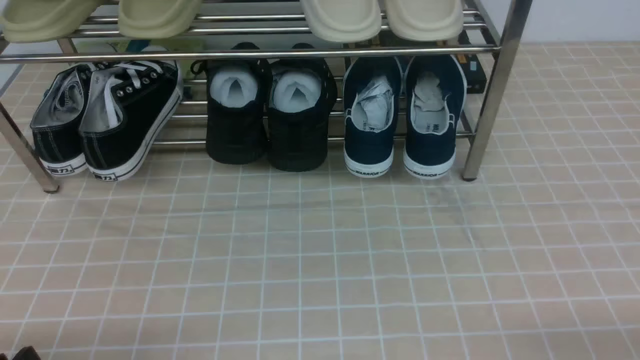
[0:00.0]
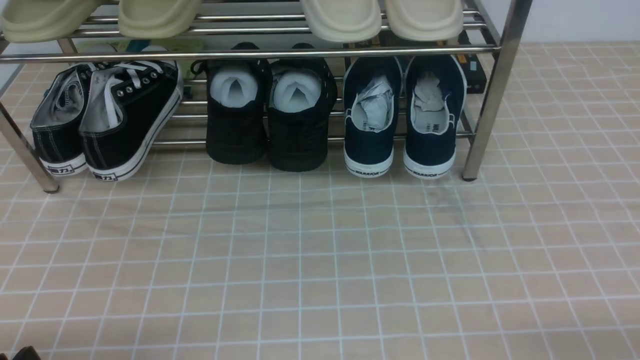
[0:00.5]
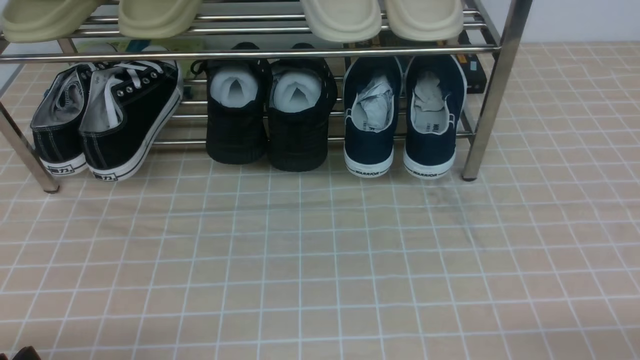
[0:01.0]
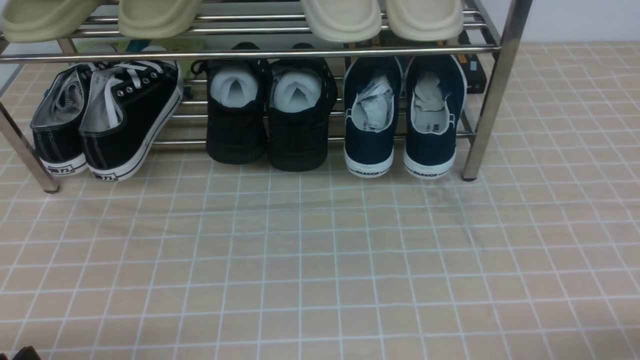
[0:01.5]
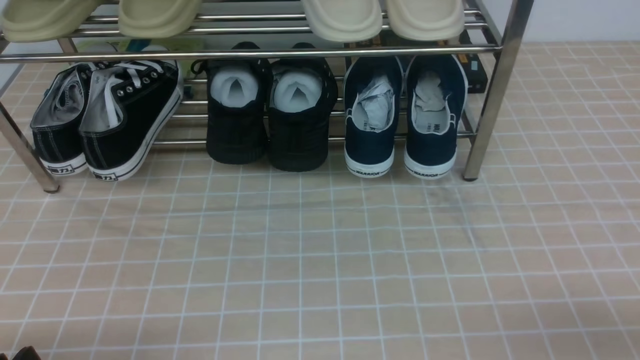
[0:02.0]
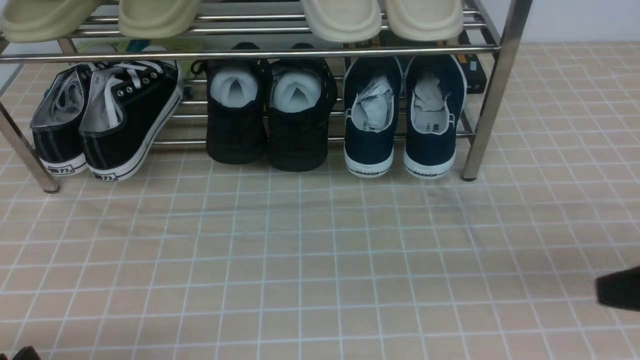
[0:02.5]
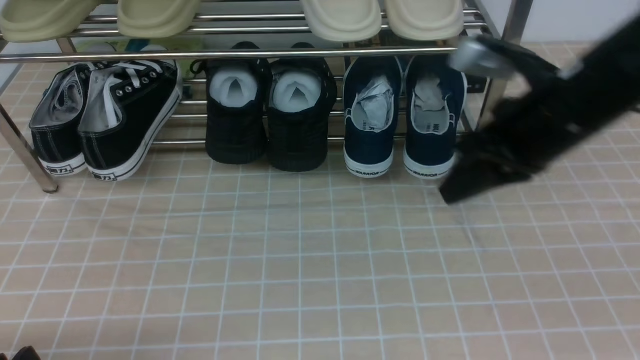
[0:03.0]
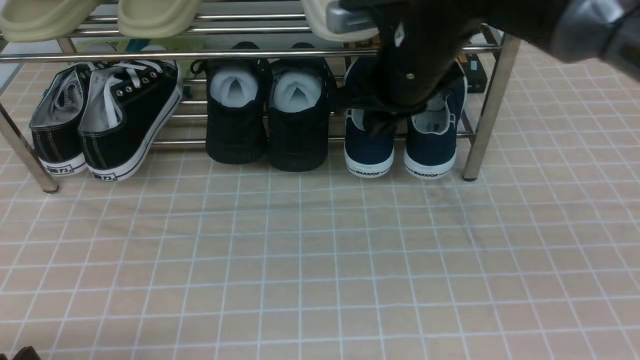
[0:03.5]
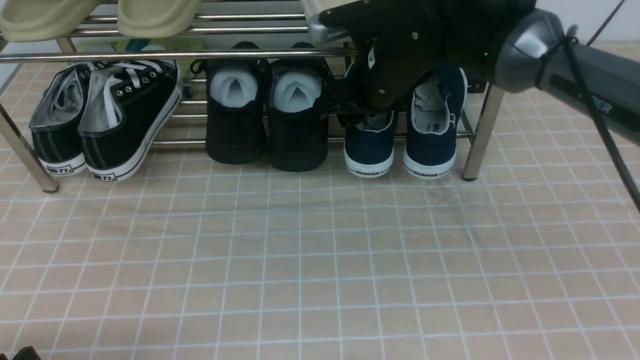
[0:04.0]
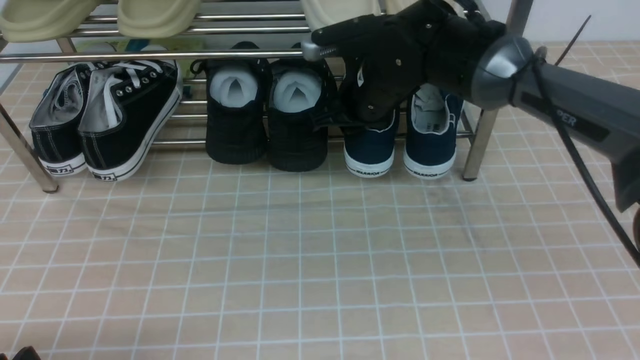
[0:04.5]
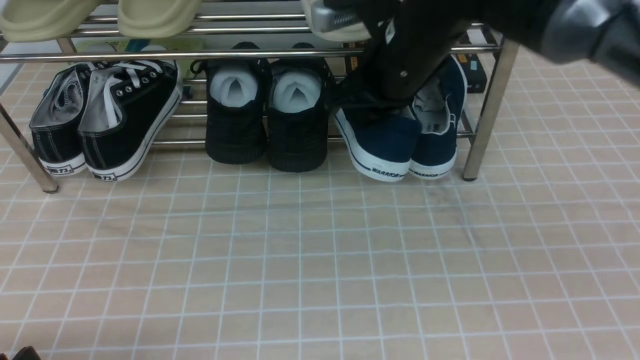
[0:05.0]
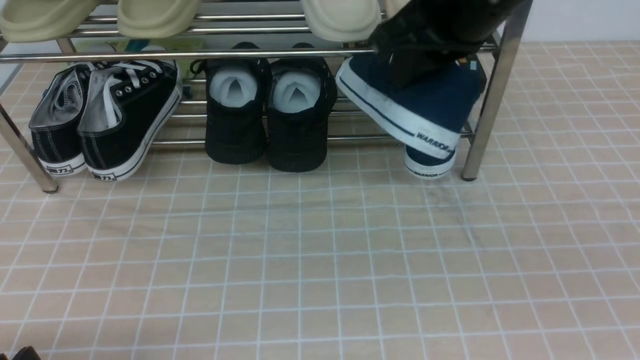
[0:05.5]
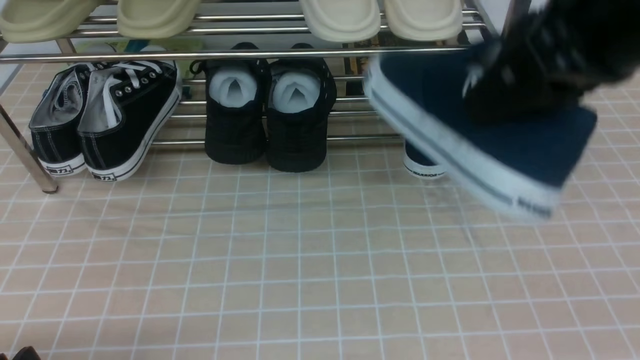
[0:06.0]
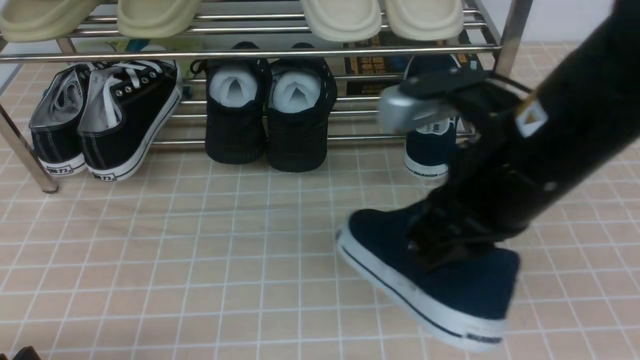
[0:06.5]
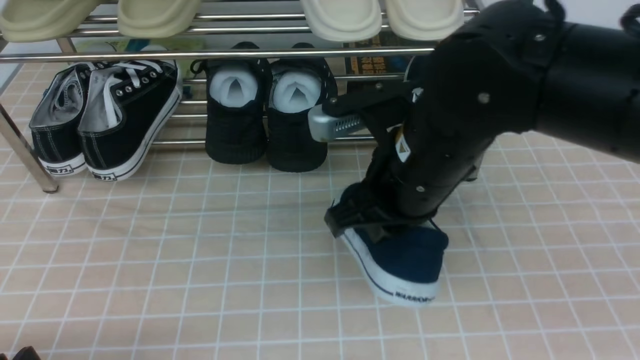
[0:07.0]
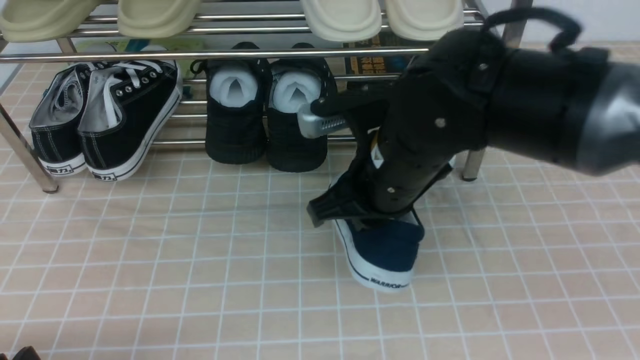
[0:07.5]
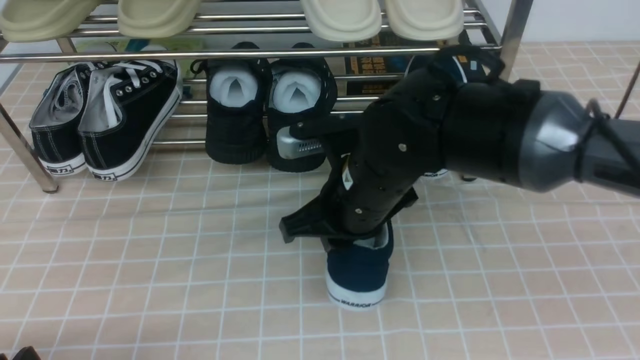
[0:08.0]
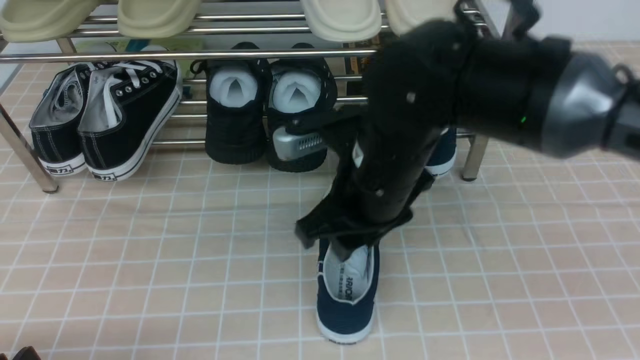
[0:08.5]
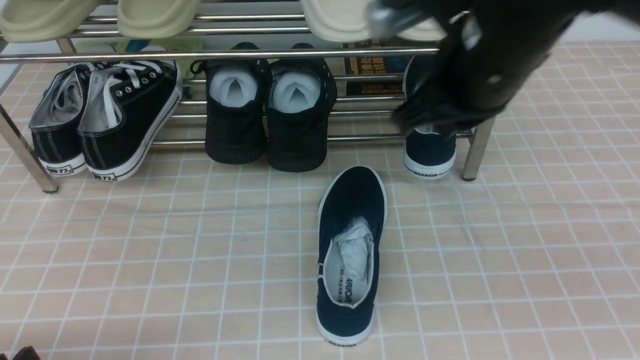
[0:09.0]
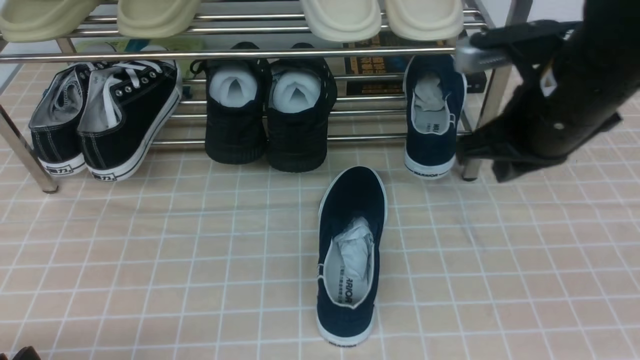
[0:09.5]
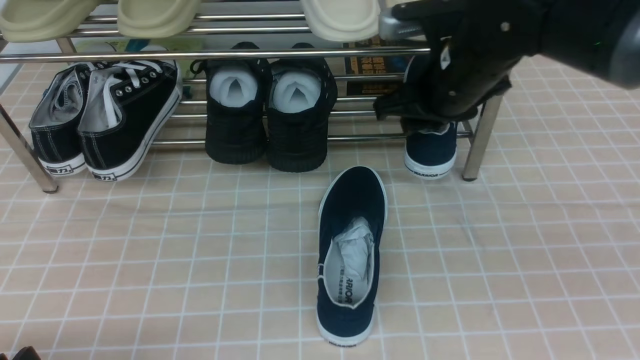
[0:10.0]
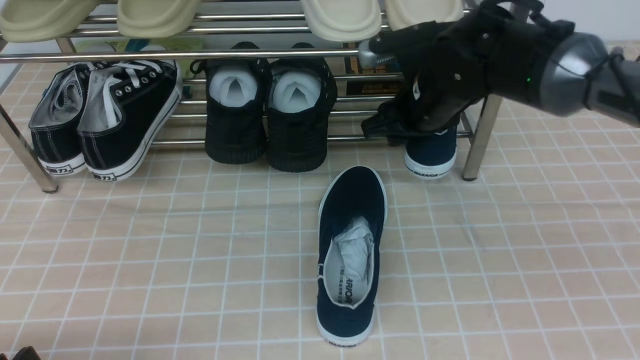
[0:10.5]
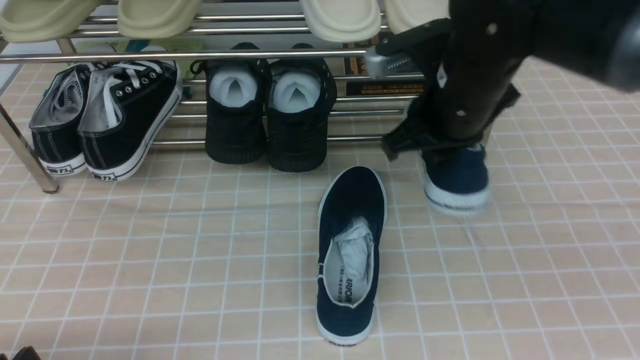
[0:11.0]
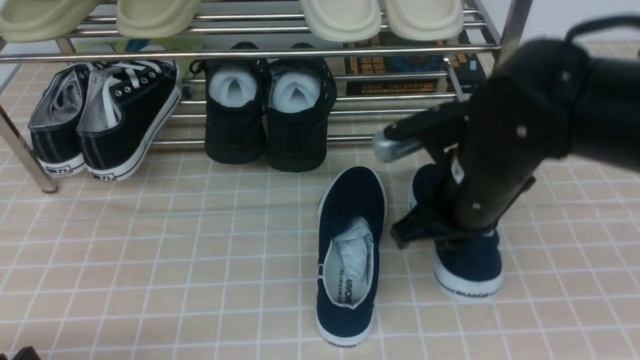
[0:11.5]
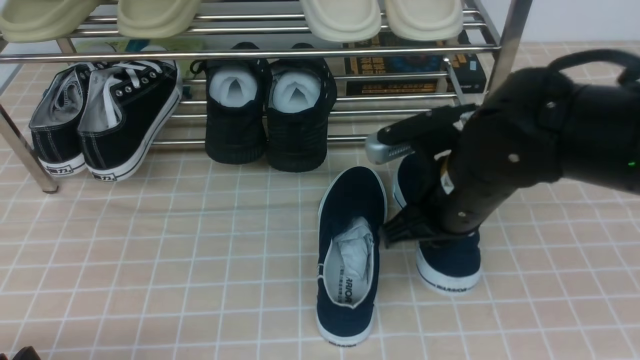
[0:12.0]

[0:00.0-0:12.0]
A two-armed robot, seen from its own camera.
Step, 0:00.0 to 0:04.5: use the right arm to clamp a shoe on the right side of the shoe rack.
Step, 0:05.0 to 0:08.0: use the right arm to take out the clamped shoe from the shoe rack and put it down.
Step, 0:08.5 to 0:10.5: use the right arm to clamp a shoe on the right side of the shoe rack.
0:02.0 to 0:04.0: The right gripper moves forward and to the left, some 40 cm, and opens up.
0:04.0 to 0:06.0: The right gripper goes about 25 cm backward, upward and to the right, and closes its fingers.
0:06.0 to 0:08.0: The right gripper heads downward and to the left, covering about 20 cm.
0:08.0 to 0:10.0: The right gripper heads to the right, forward and upward, covering approximately 15 cm, and opens up.
0:10.0 to 0:12.0: The right gripper travels backward and downward by about 10 cm, and closes its fingers.

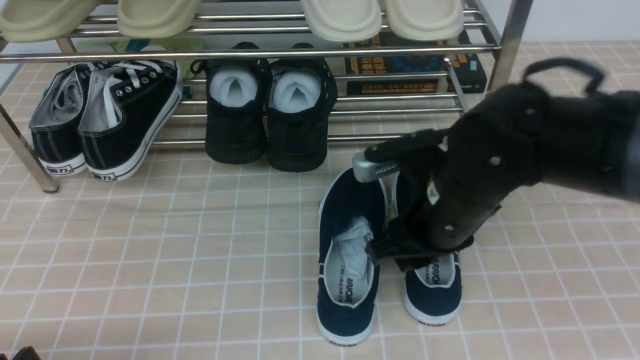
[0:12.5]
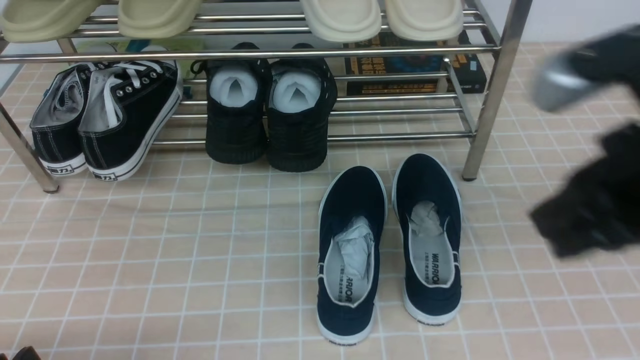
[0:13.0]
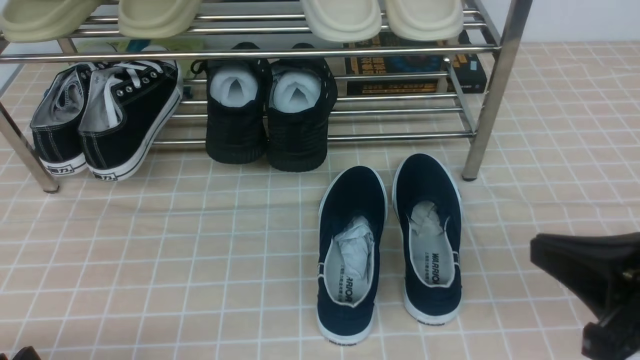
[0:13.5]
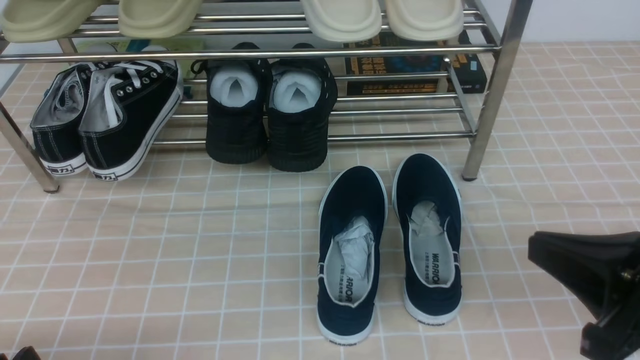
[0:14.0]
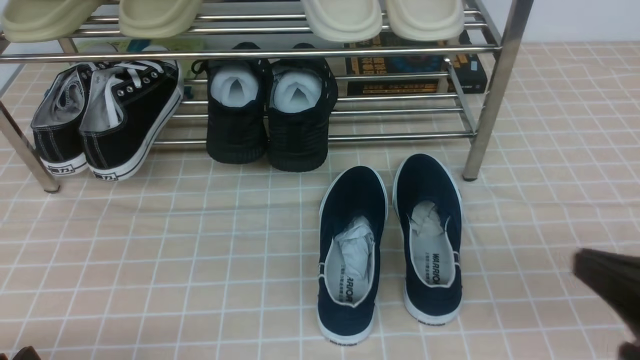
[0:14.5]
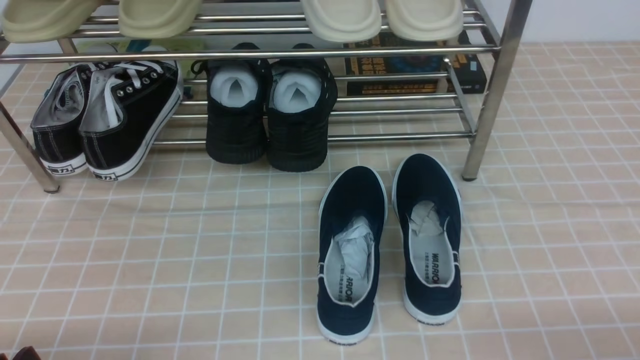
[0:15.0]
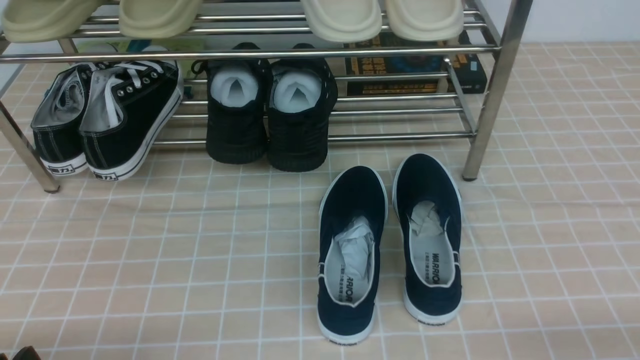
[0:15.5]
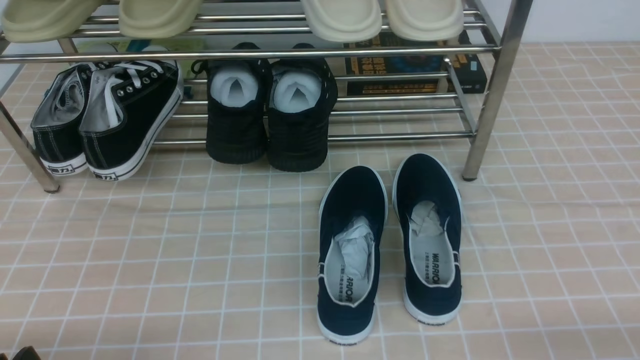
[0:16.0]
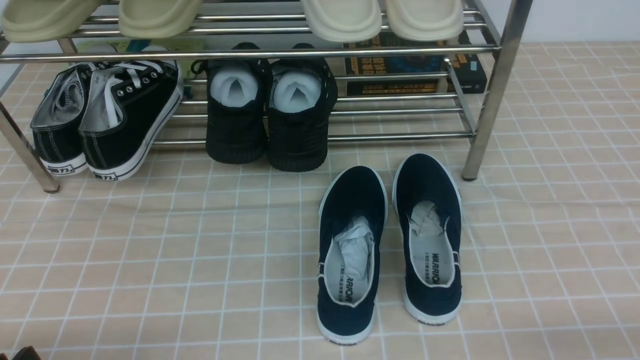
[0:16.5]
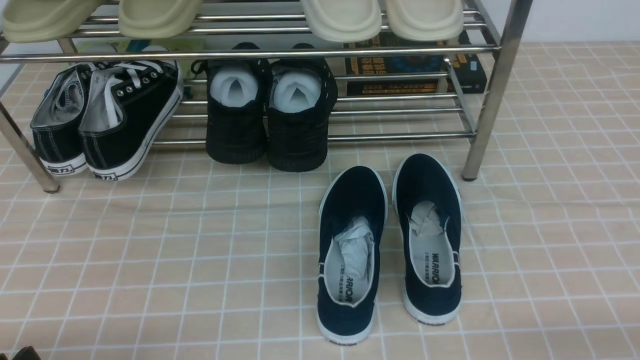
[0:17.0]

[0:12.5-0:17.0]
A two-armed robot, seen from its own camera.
0:12.5 to 0:14.5: The right gripper shifts approximately 25 cm to the right and backward, and closes its fingers.
0:14.5 to 0:17.0: The right gripper is displaced downward and to the right by about 10 cm.
